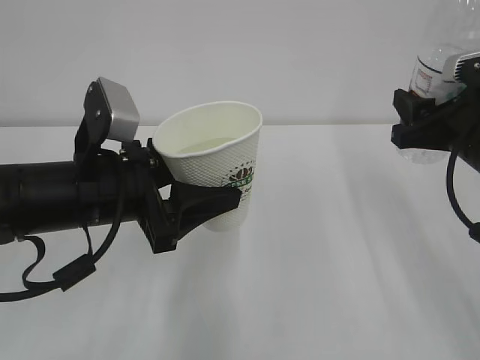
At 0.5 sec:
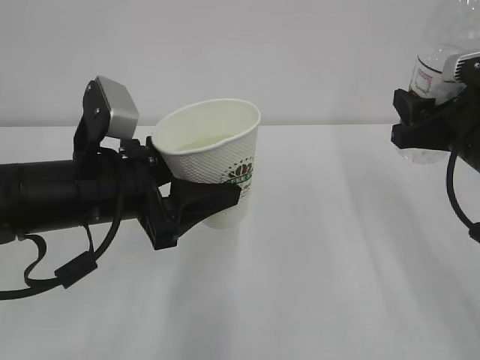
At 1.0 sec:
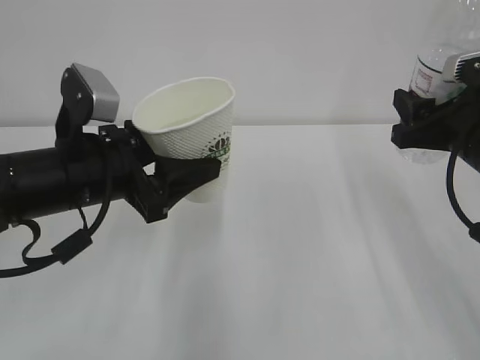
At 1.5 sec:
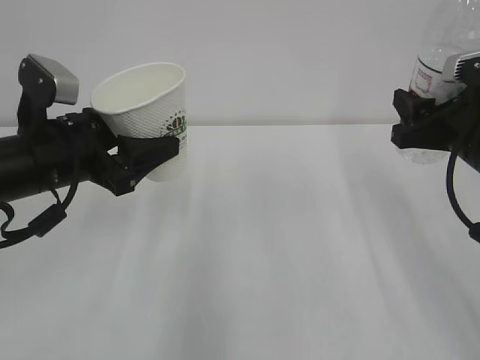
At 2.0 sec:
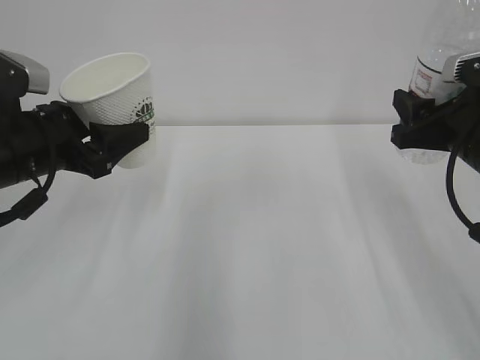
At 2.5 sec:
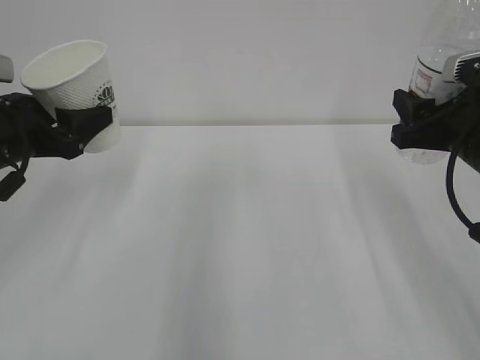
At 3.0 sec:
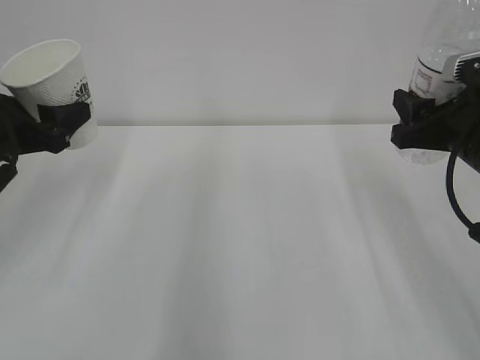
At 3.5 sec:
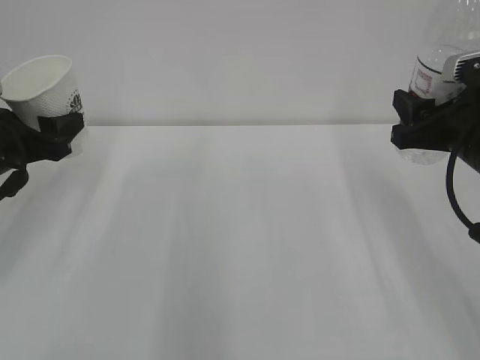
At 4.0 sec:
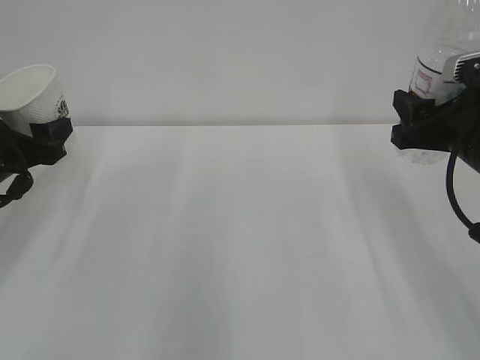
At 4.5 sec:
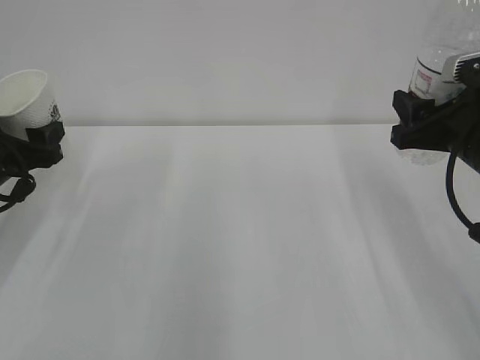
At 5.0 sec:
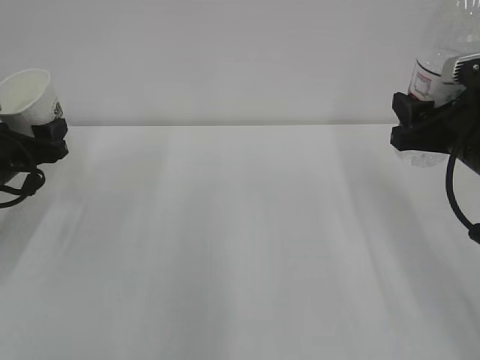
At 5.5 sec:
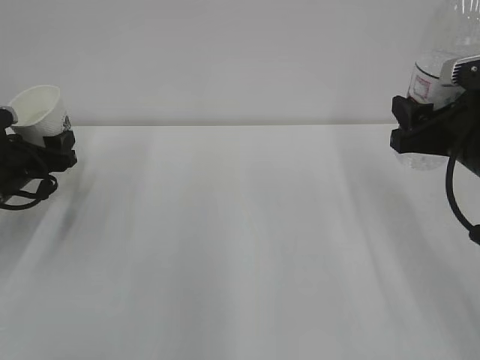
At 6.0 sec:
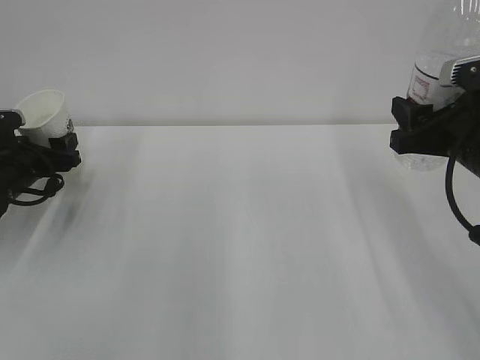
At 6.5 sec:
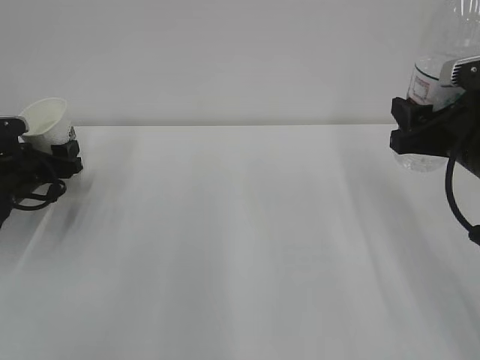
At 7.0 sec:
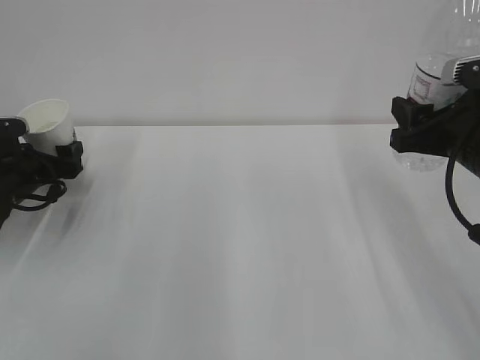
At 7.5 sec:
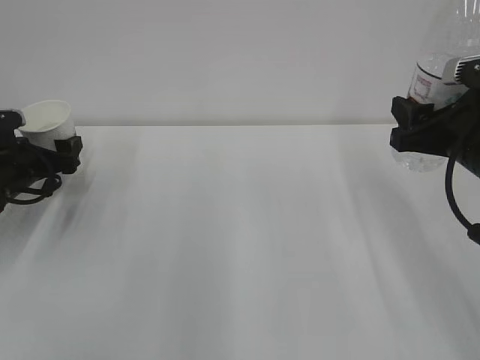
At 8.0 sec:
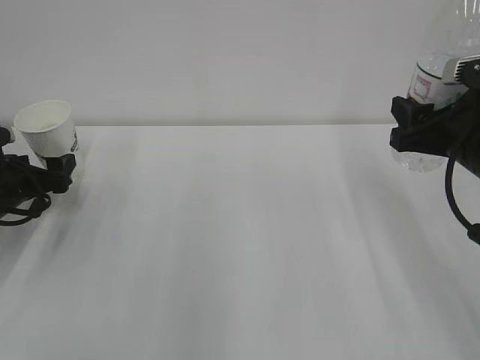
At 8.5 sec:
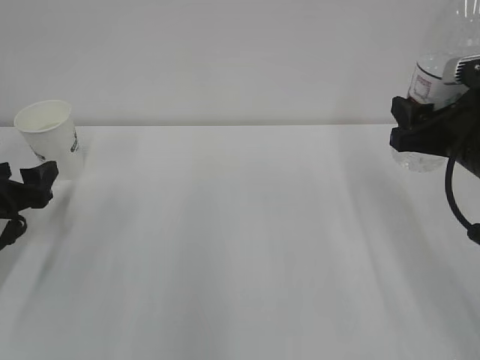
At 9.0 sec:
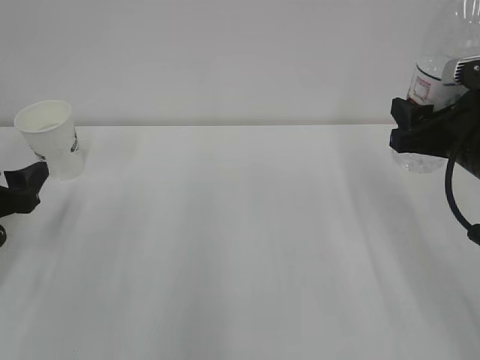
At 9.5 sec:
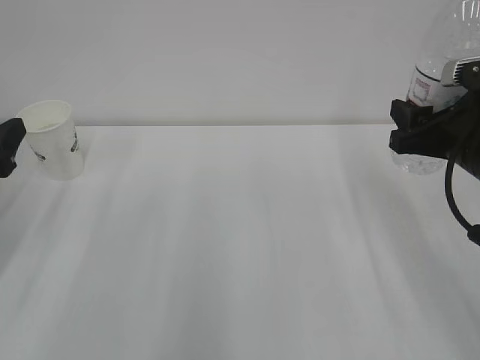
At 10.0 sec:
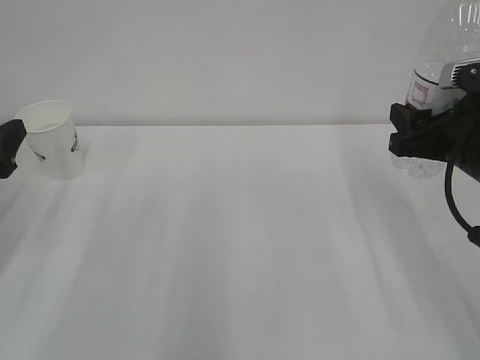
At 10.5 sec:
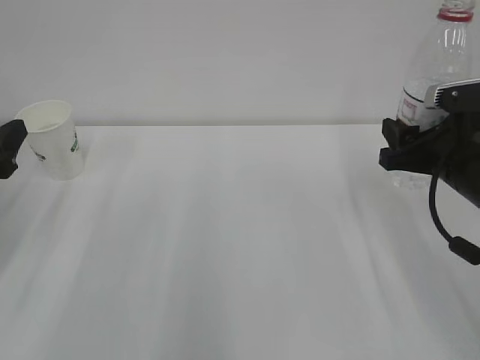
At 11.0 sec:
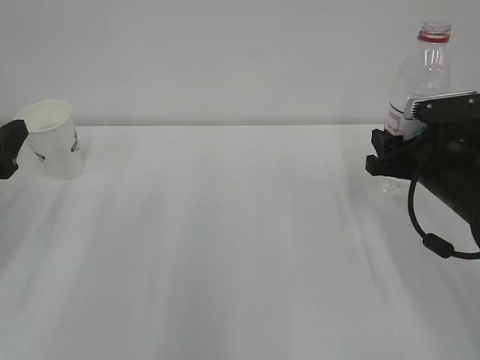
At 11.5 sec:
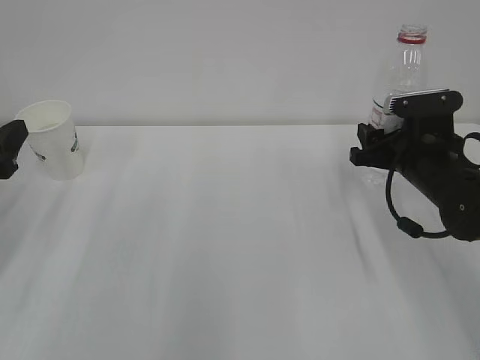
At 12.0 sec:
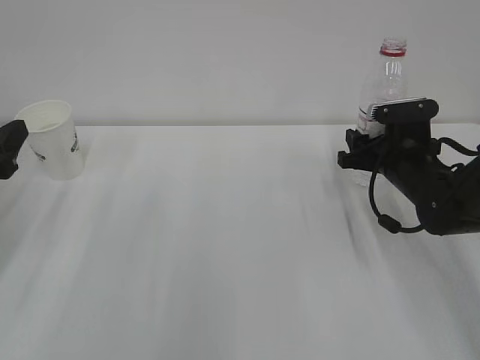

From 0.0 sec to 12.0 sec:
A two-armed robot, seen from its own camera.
From 0.0 sec to 2.0 sec: The left gripper shifts about 10 cm to the left and forward.
From 2.0 sec to 4.0 sec: The left gripper moves to the left and downward, about 10 cm.
From 4.0 sec to 6.0 sec: The left gripper moves downward and forward, approximately 10 cm.
From 6.0 sec to 8.0 sec: The left gripper opens.
From 8.0 sec to 10.0 sec: The left gripper heads upward and backward, covering roughly 15 cm.
From 10.0 sec to 12.0 sec: The right gripper heads downward and forward, covering about 15 cm.

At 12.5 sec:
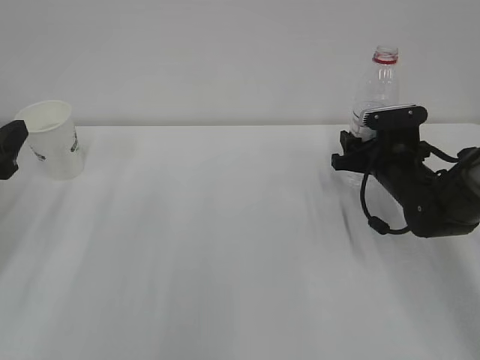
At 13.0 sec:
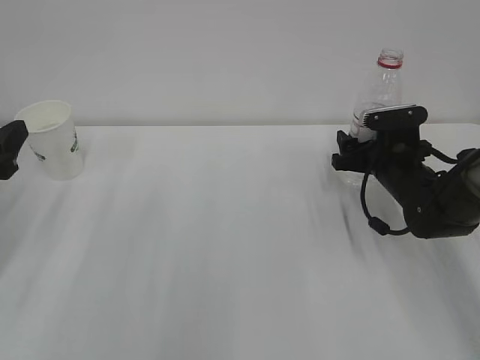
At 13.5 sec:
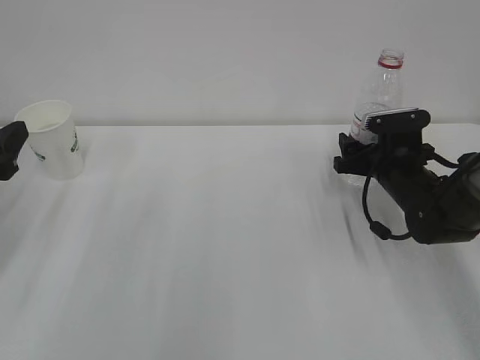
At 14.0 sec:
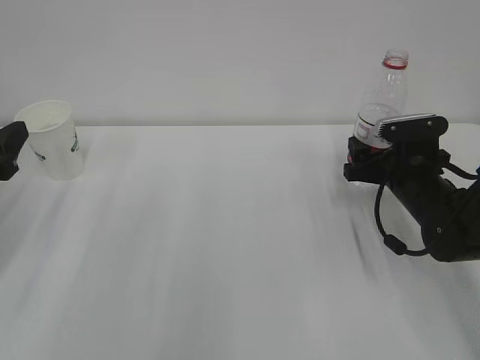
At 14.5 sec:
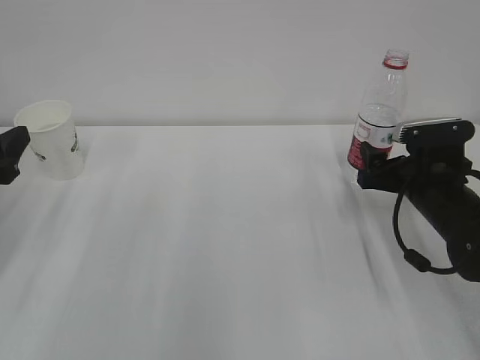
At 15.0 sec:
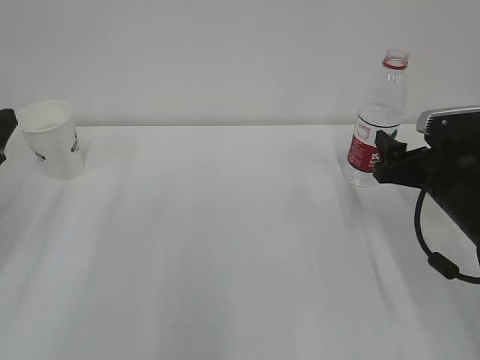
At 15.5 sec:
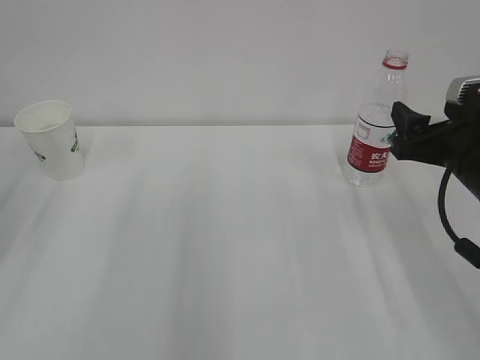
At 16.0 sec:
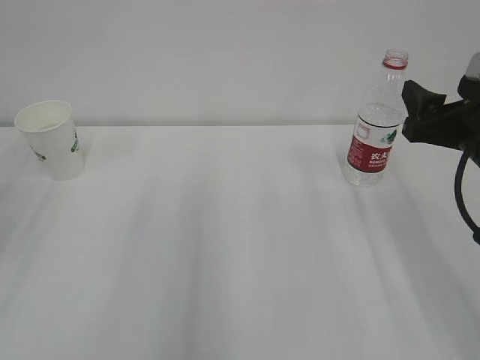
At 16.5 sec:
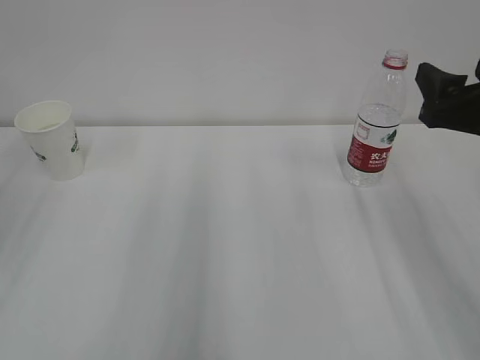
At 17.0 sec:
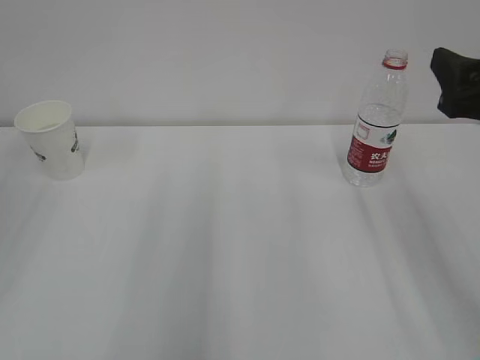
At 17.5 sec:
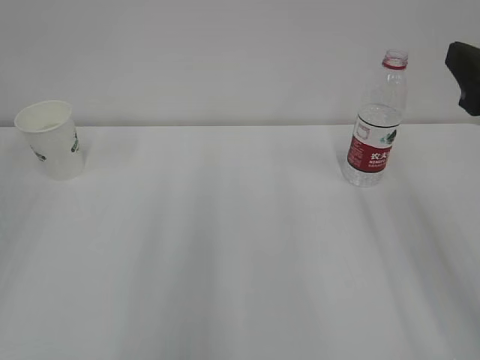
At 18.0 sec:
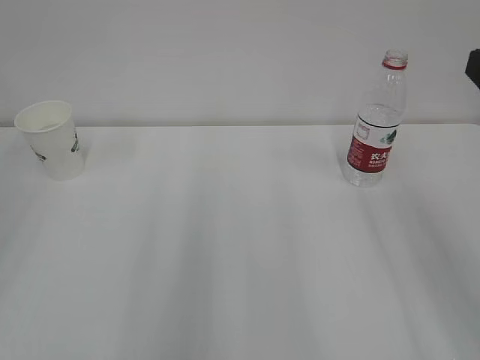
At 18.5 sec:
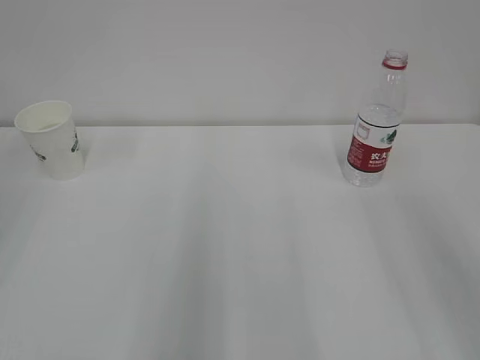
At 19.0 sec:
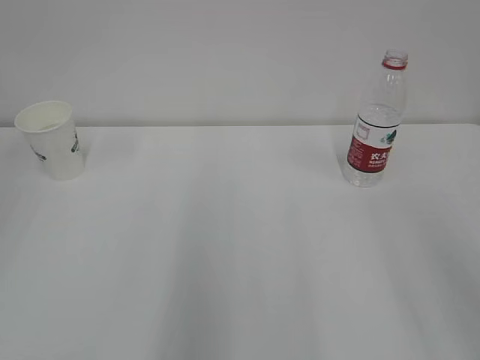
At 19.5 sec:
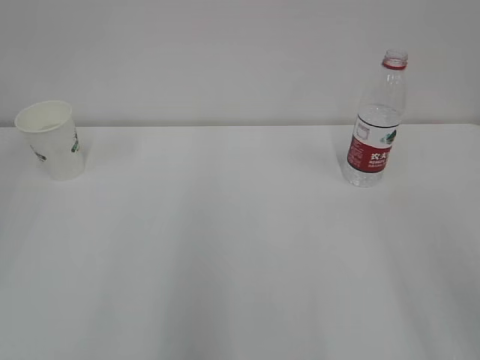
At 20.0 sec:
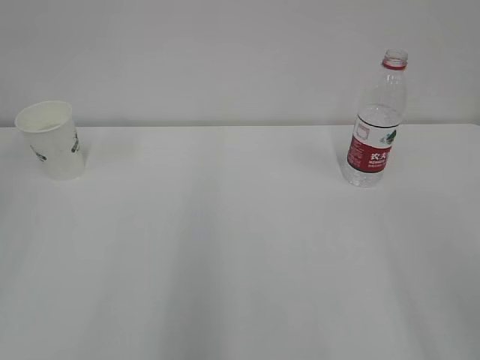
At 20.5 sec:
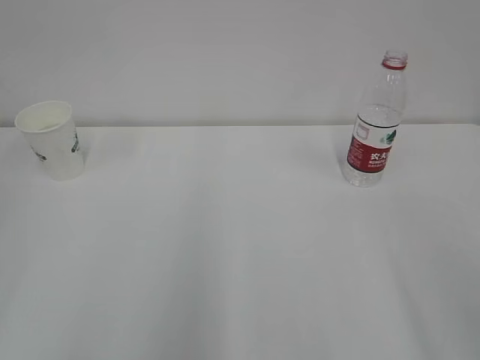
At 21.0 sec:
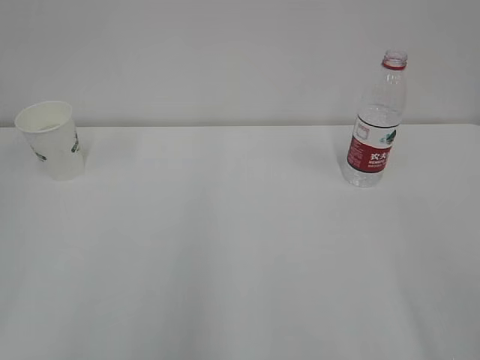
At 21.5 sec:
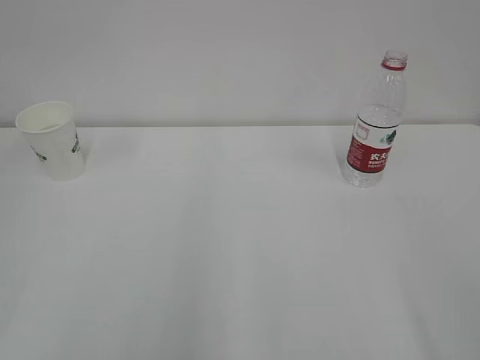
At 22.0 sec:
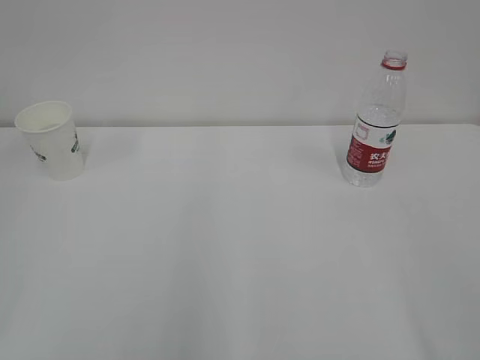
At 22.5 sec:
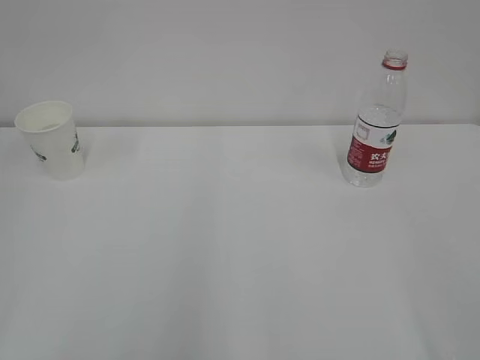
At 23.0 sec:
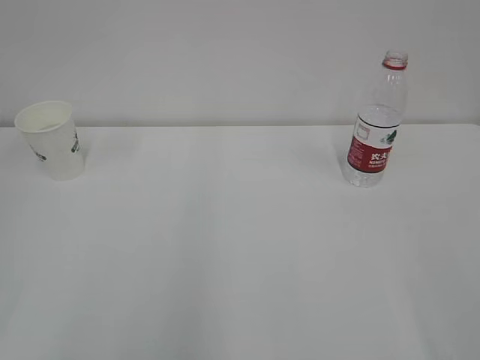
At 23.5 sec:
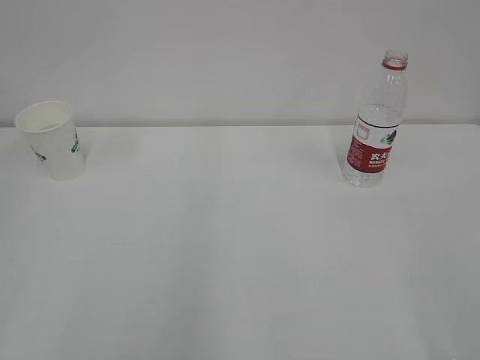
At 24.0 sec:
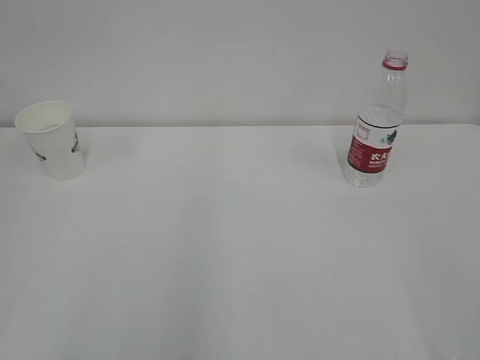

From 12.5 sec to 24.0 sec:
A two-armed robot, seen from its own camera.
From 12.5 sec to 14.5 sec: The right gripper is displaced backward by approximately 5 cm, and opens up.
From 14.5 sec to 16.5 sec: Both grippers travel together upward and backward, some 15 cm.
From 16.5 sec to 18.5 sec: The right gripper goes approximately 15 cm backward and upward.

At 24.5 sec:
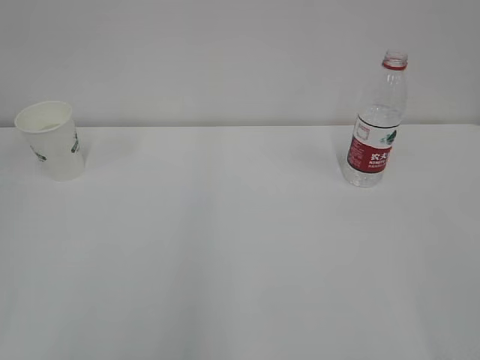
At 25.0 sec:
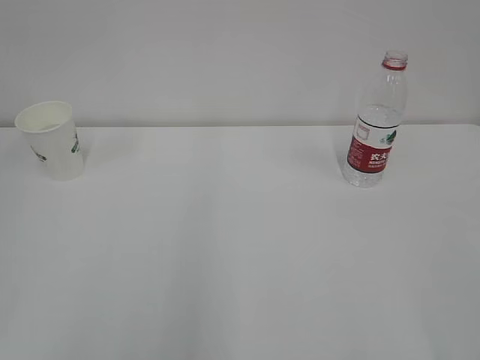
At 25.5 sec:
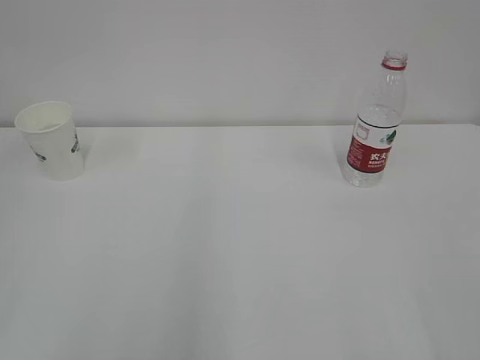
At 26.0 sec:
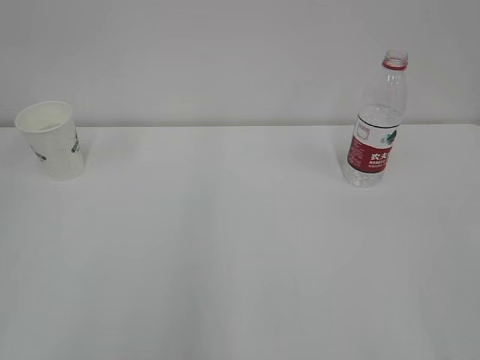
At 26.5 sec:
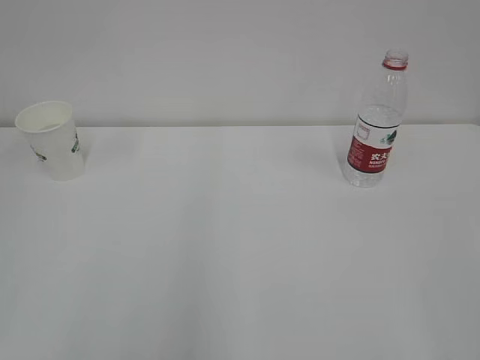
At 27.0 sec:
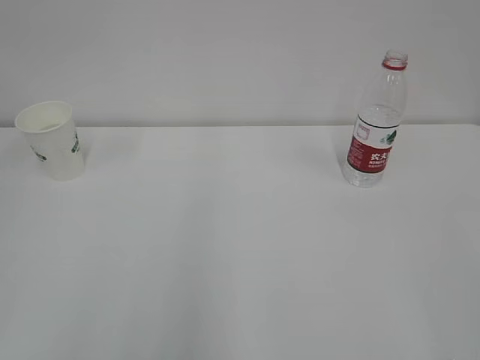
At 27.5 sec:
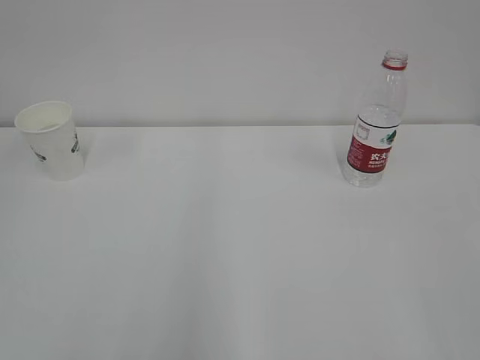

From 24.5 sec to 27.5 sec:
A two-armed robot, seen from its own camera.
From 24.5 sec to 26.0 sec: The two grippers keep their place.
From 26.0 sec to 27.5 sec: The two grippers keep their place.
